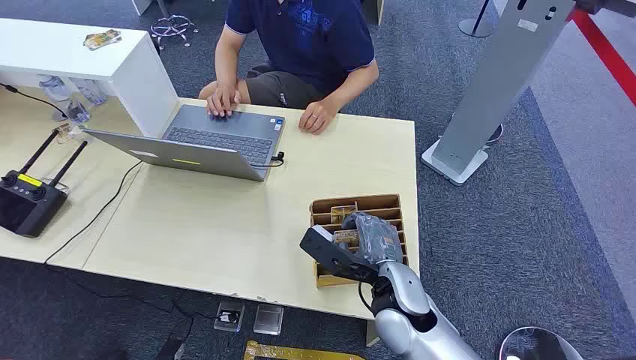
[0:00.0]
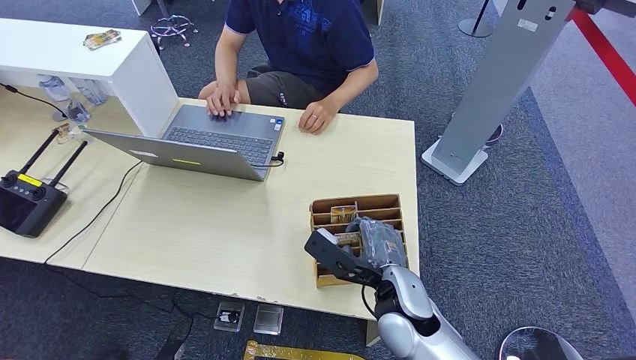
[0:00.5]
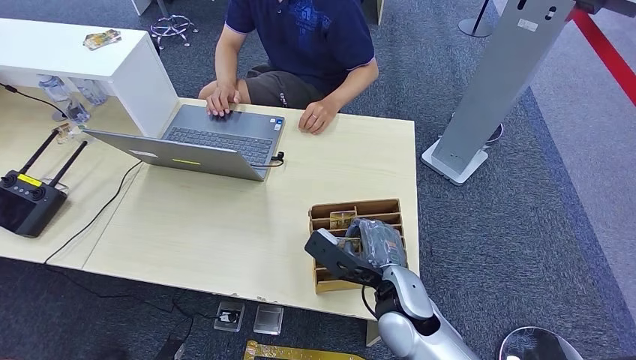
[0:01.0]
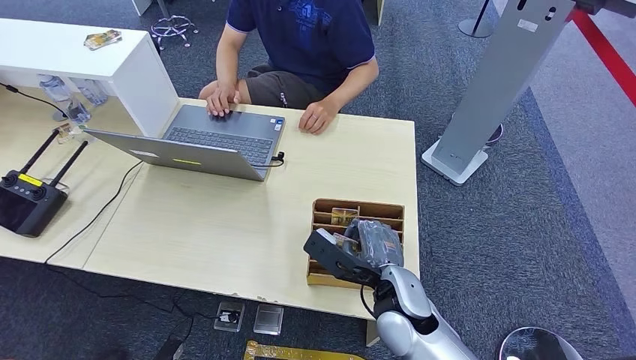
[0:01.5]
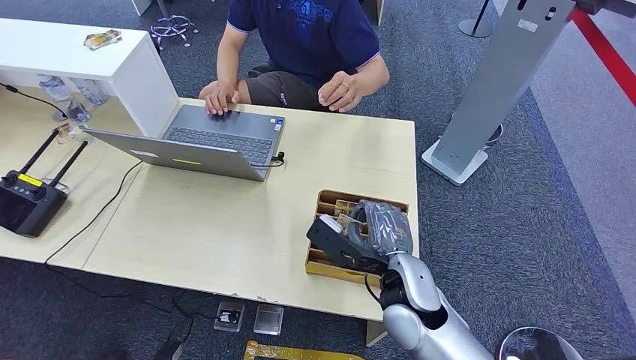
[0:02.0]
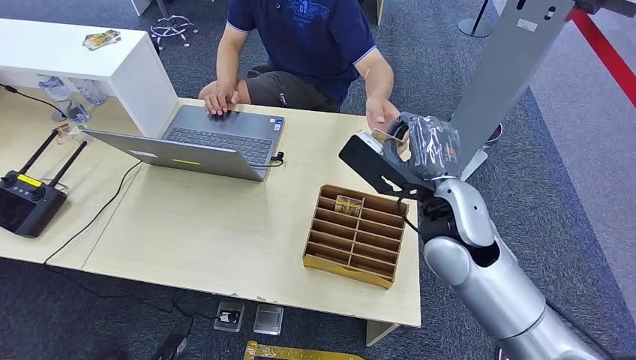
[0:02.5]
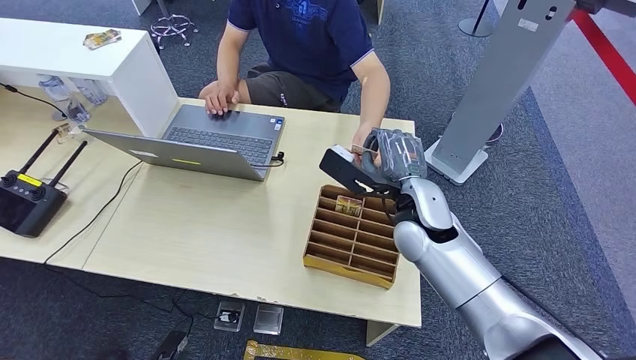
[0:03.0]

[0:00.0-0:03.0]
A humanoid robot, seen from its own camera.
Step, 0:00.0 to 0:01.5: Pick up the key card from the card box.
Step, 0:02.5 to 0:03.0: Hand the key card to the target.
0:01.5 to 0:03.0: The right hand heads forward and upward, covering about 15 cm.

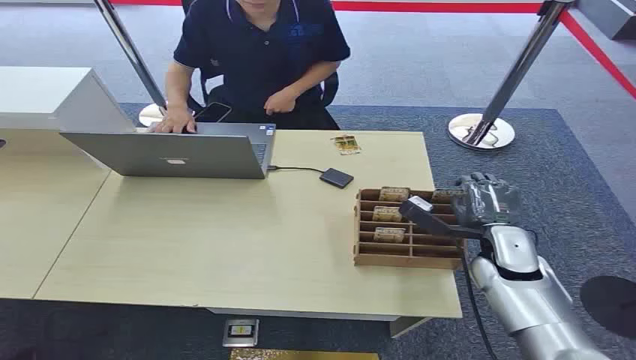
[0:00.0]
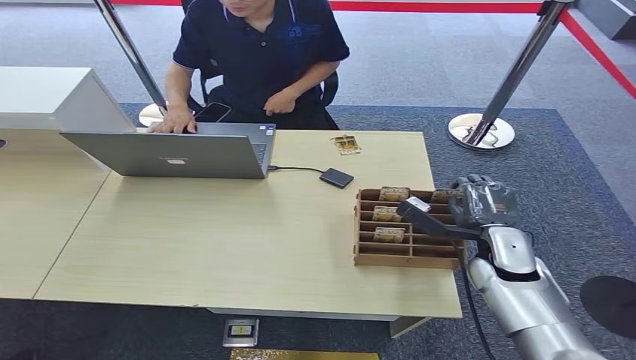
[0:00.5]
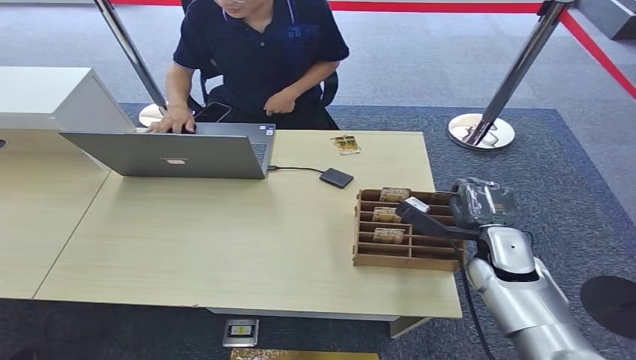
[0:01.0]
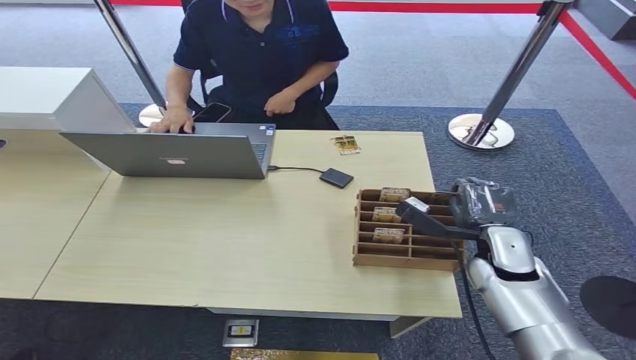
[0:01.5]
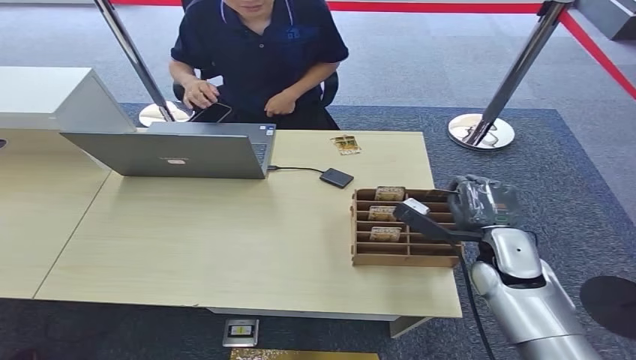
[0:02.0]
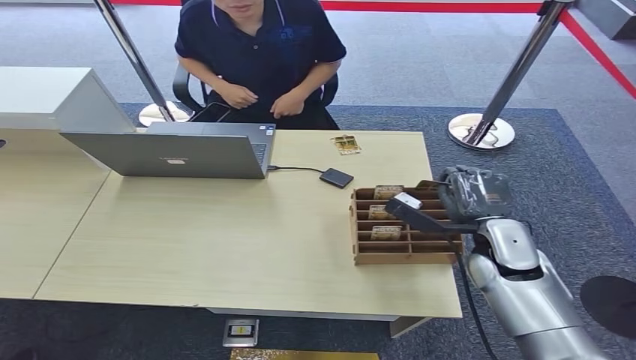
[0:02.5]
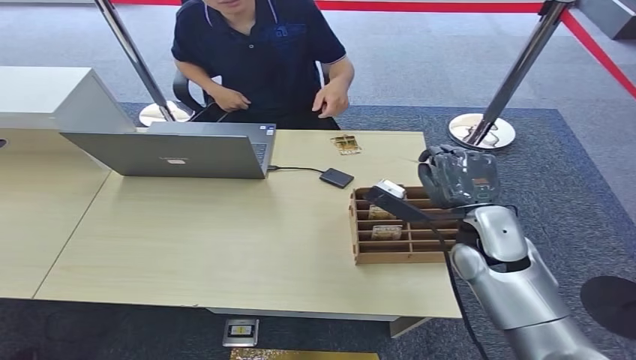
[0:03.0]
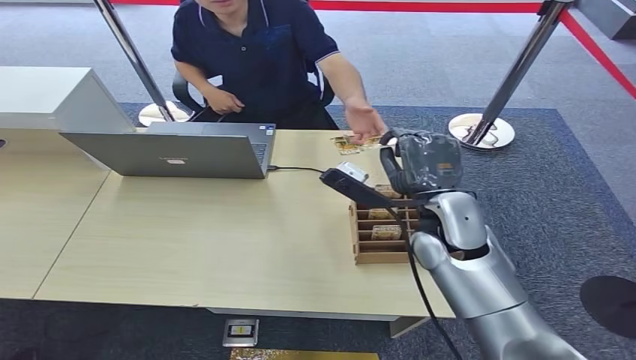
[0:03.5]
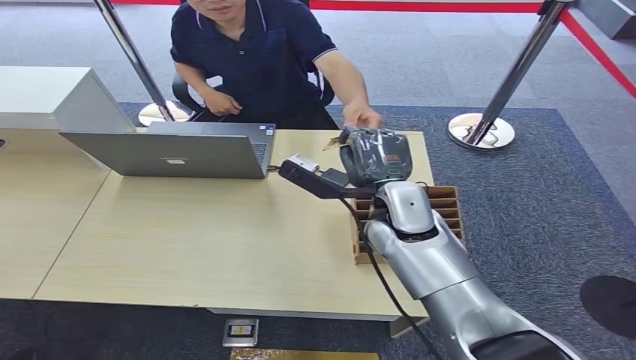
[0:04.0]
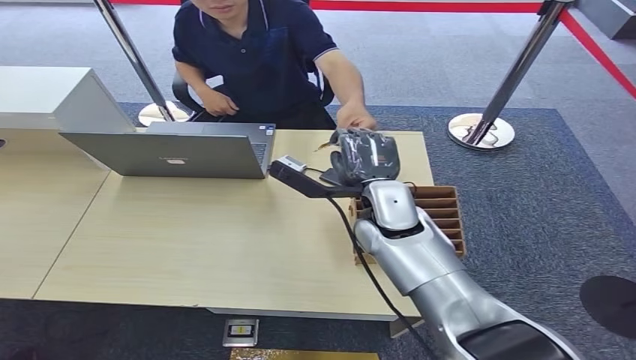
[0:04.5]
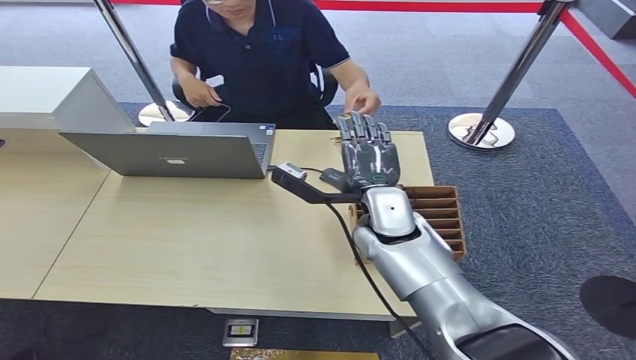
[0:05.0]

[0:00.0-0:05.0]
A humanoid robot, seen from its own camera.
Step, 0:00.0 to 0:03.0: Pick up the key card from the card box.
Step, 0:03.5 to 0:05.0: Hand the key card to the target.
0:02.5 to 0:05.0: The right hand shifts approximately 15 cm to the left.

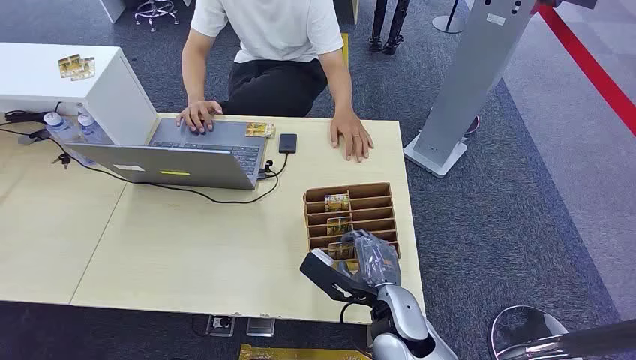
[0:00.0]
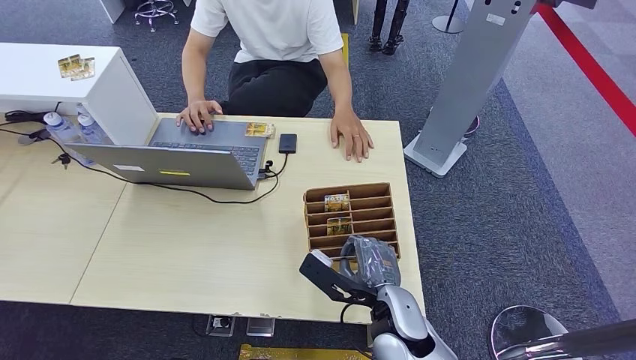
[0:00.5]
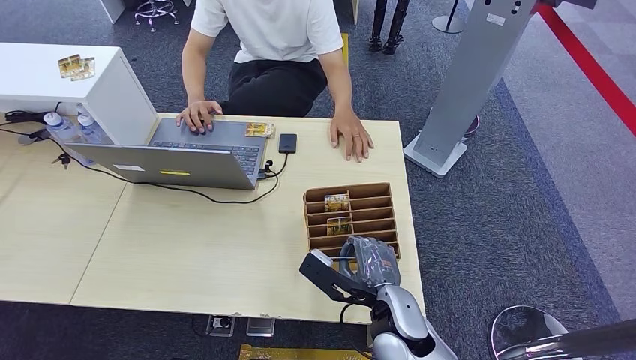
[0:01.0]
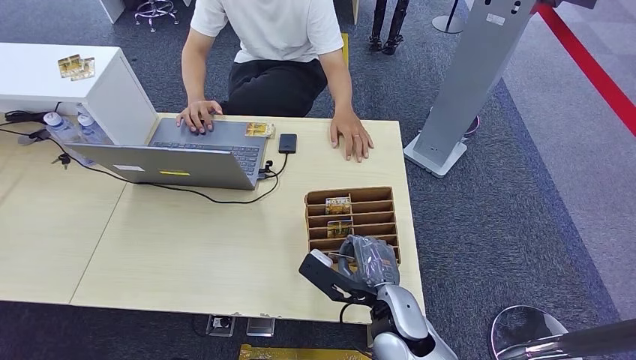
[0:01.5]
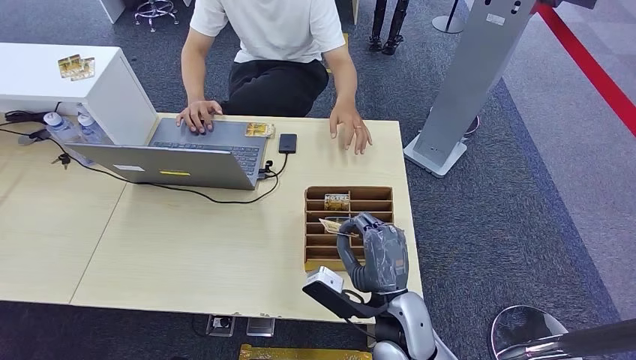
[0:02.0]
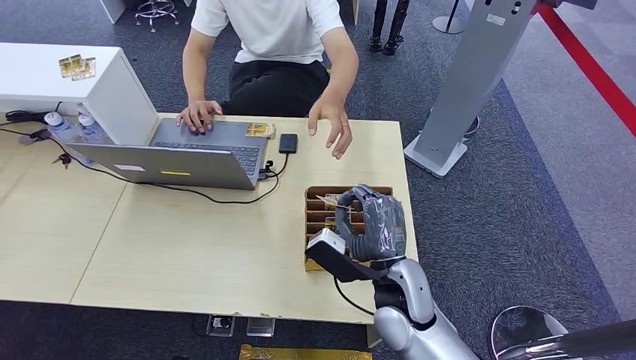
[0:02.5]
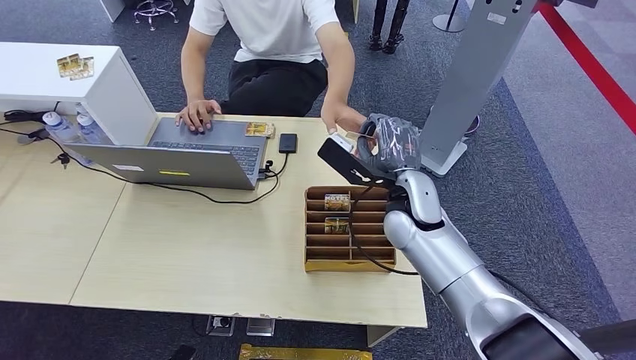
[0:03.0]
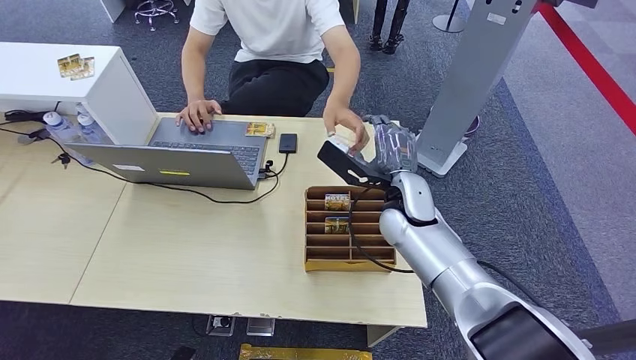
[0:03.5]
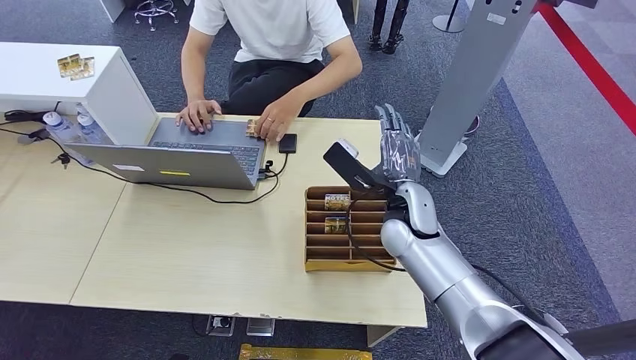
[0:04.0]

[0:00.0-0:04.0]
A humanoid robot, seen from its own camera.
Step, 0:00.0 to 0:01.5: Pick up the key card from the card box.
Step, 0:02.0 to 0:04.0: Hand the key card to the target.
0:02.0 to 0:04.0: The right hand shifts approximately 15 cm forward and upward.

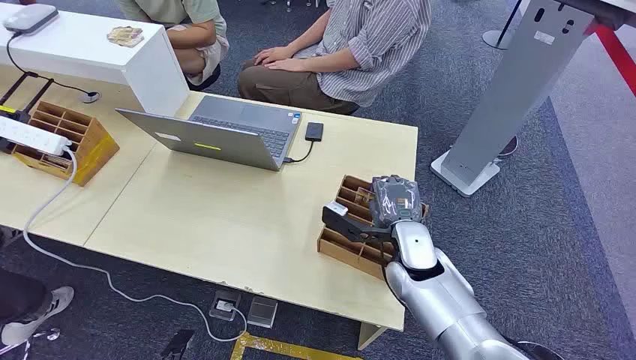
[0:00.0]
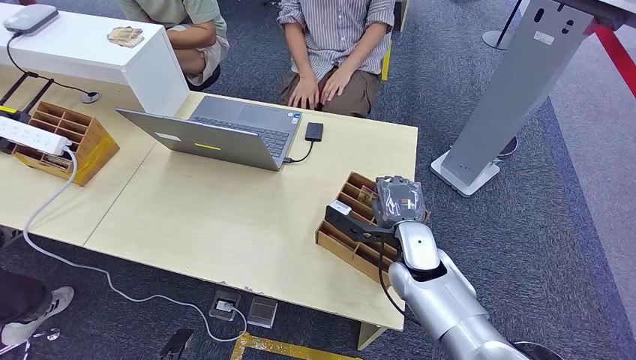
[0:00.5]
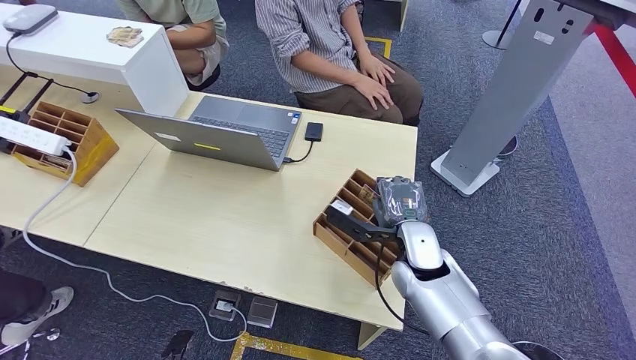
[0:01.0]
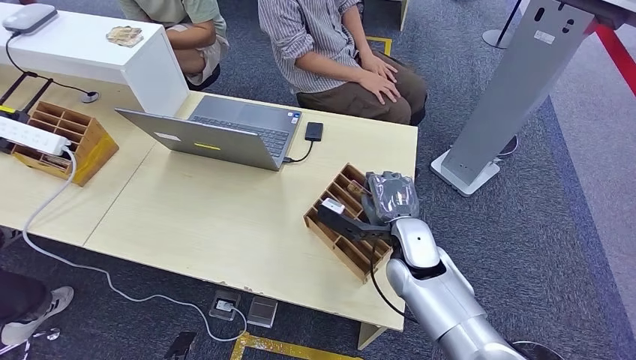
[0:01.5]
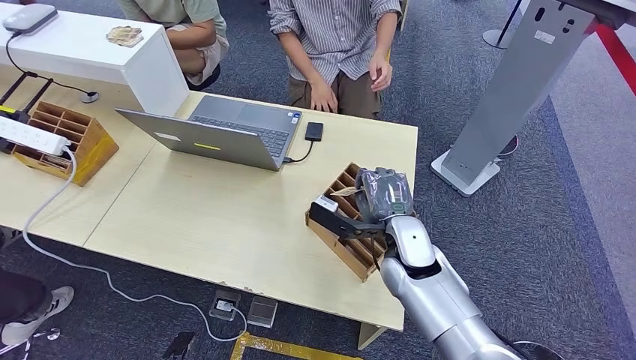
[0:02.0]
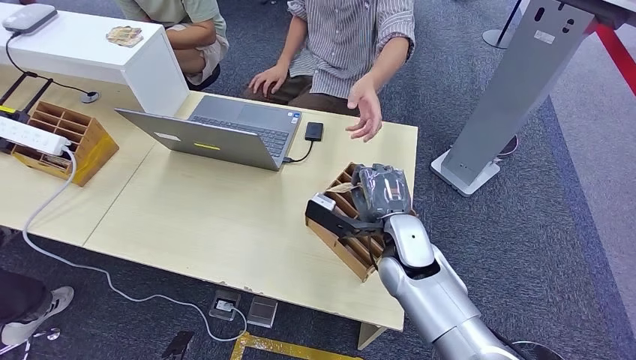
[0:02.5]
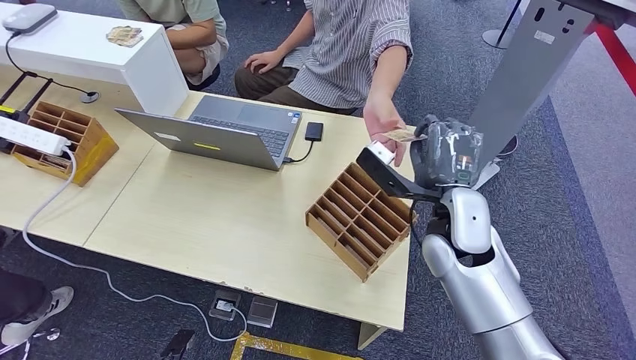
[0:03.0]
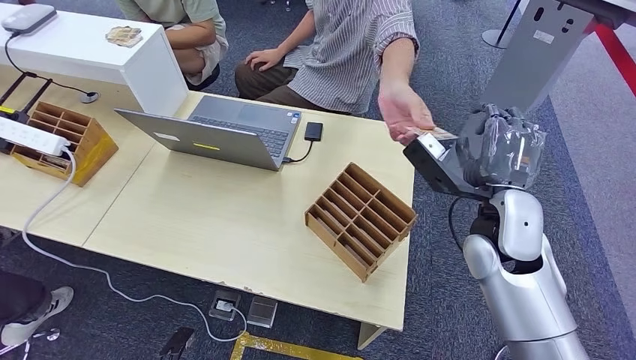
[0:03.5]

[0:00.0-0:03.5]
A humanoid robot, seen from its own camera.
Step, 0:00.0 to 0:02.0: Pick up the key card from the card box.
Step, 0:03.0 to 0:03.5: Hand the key card to the target.
